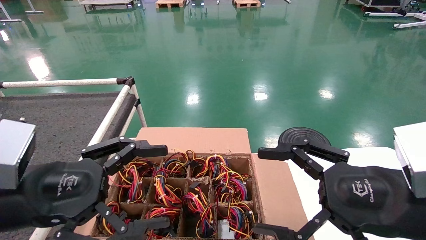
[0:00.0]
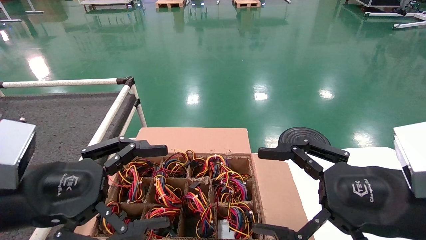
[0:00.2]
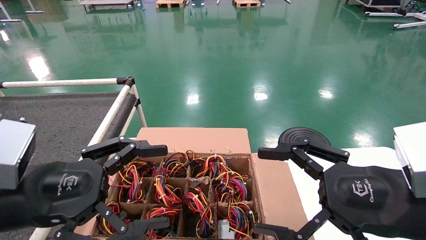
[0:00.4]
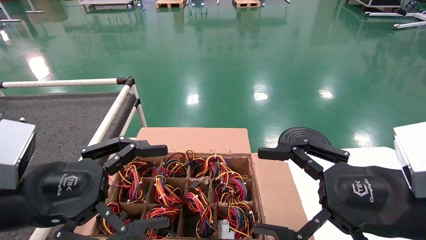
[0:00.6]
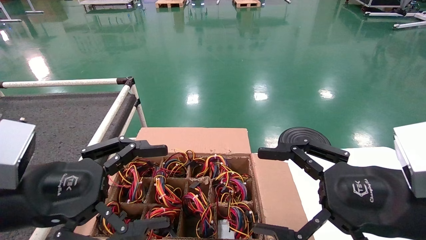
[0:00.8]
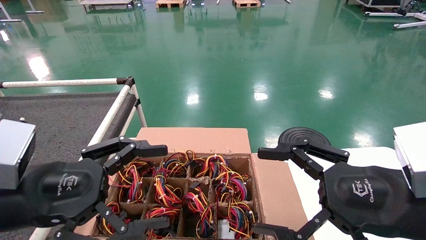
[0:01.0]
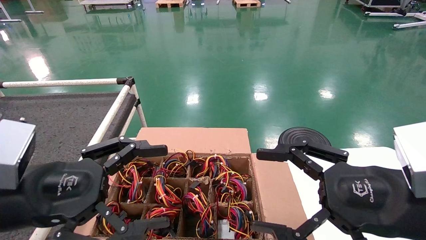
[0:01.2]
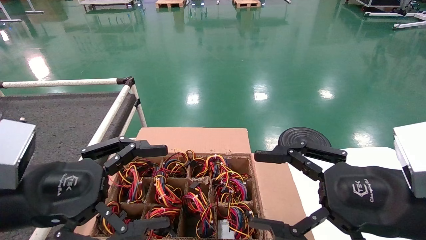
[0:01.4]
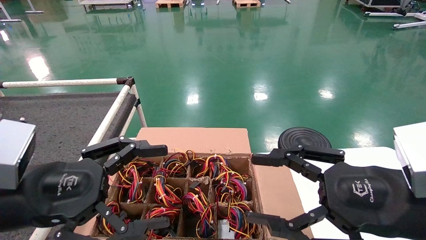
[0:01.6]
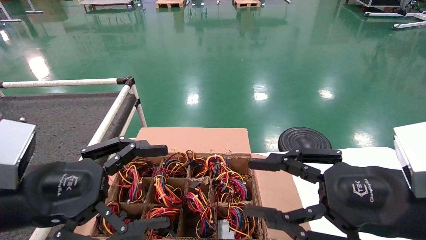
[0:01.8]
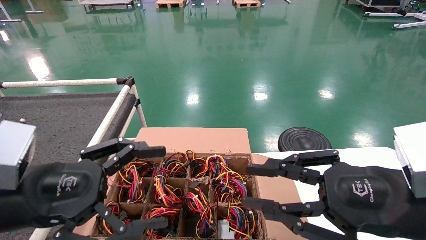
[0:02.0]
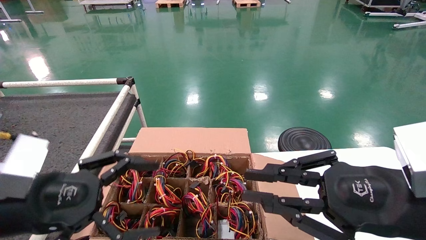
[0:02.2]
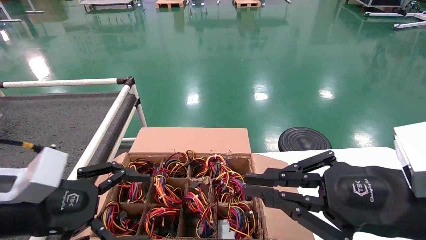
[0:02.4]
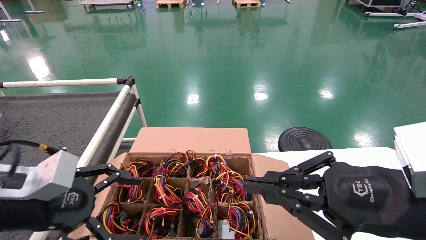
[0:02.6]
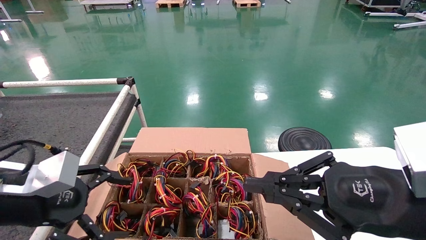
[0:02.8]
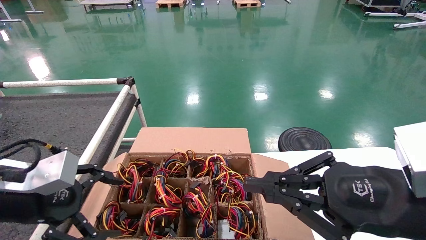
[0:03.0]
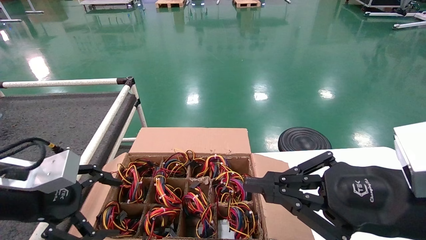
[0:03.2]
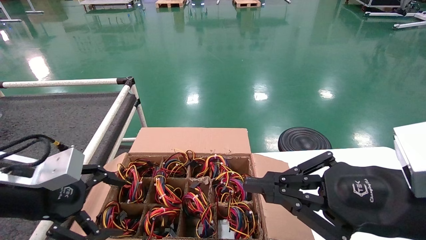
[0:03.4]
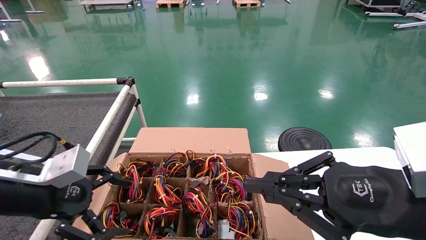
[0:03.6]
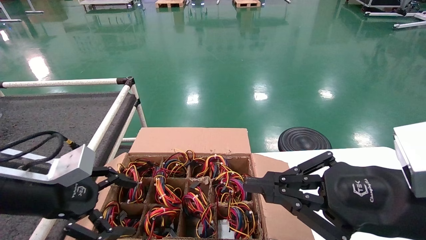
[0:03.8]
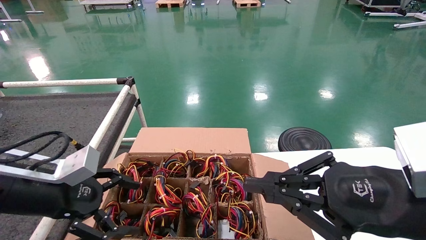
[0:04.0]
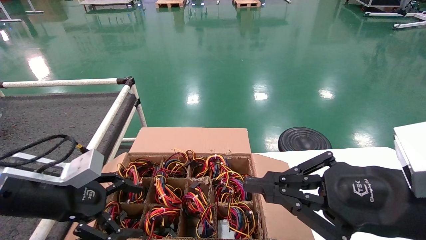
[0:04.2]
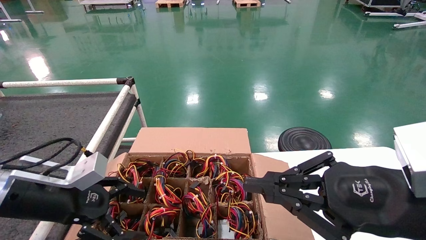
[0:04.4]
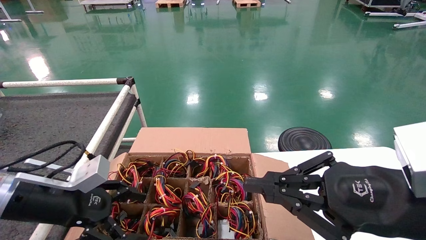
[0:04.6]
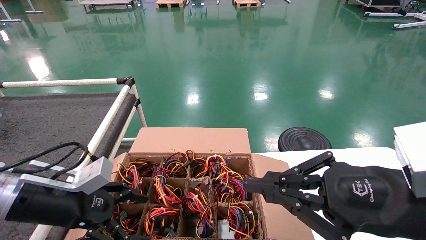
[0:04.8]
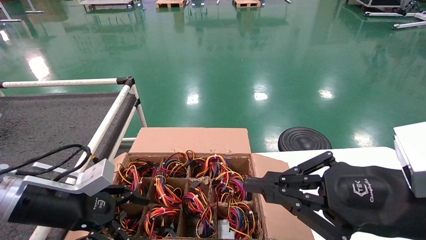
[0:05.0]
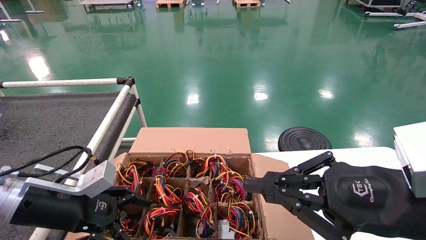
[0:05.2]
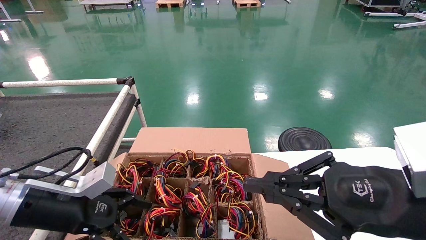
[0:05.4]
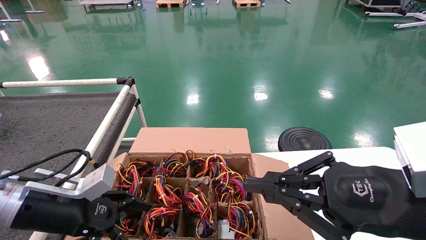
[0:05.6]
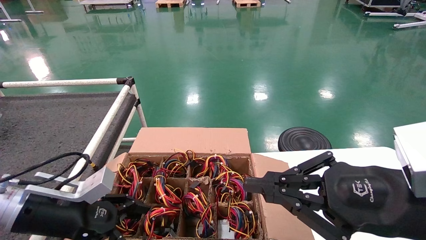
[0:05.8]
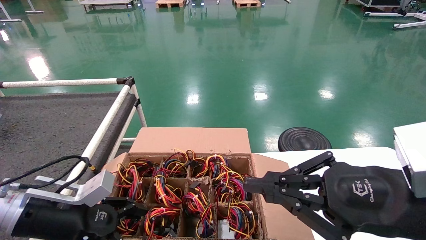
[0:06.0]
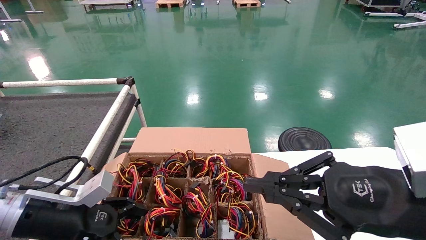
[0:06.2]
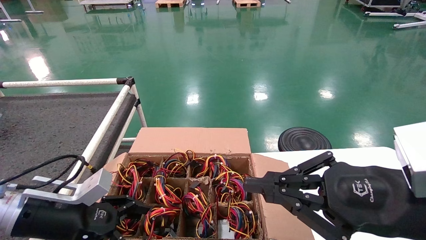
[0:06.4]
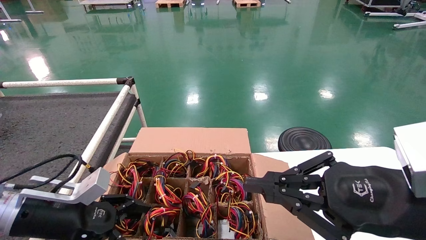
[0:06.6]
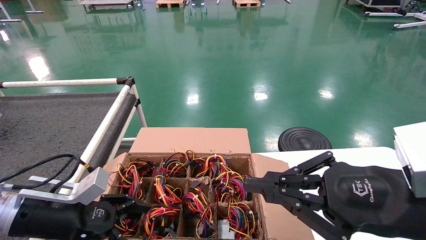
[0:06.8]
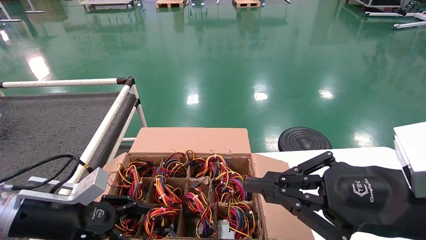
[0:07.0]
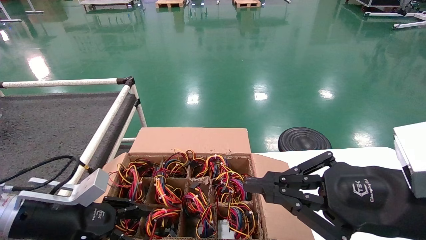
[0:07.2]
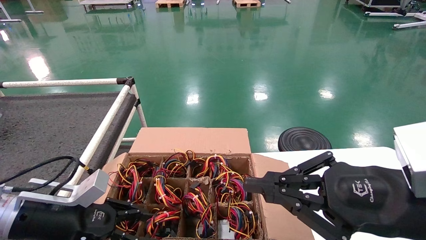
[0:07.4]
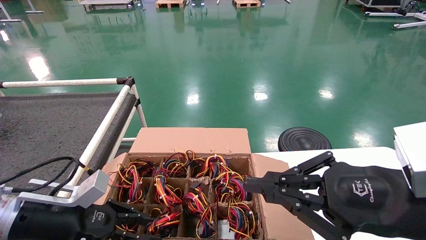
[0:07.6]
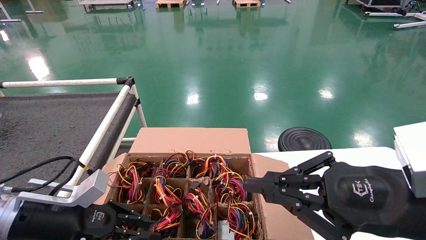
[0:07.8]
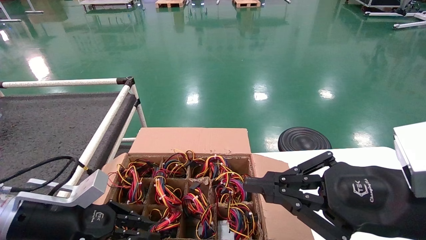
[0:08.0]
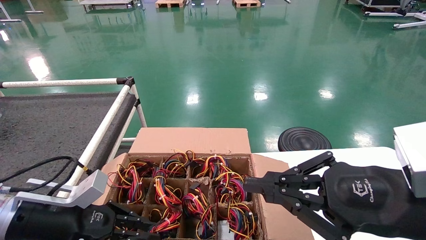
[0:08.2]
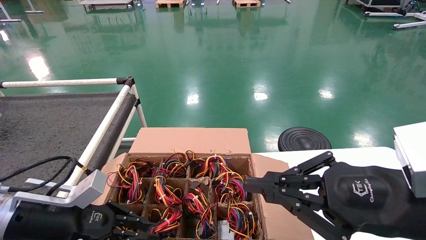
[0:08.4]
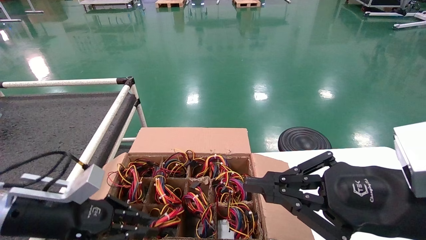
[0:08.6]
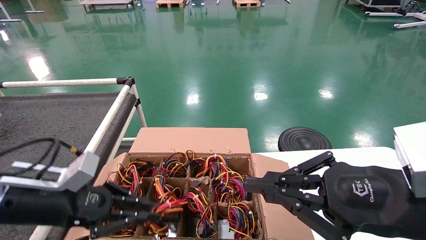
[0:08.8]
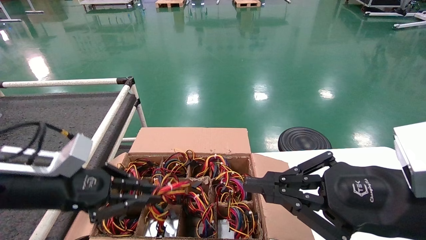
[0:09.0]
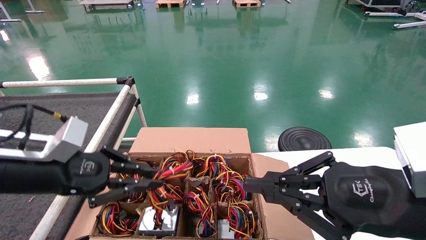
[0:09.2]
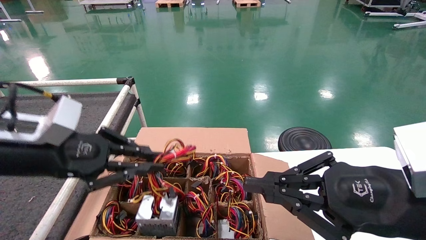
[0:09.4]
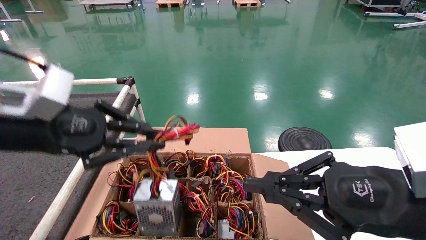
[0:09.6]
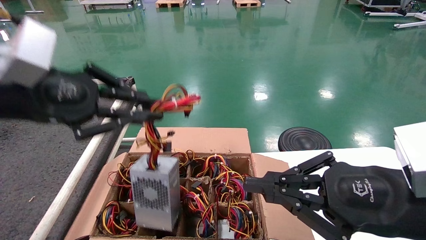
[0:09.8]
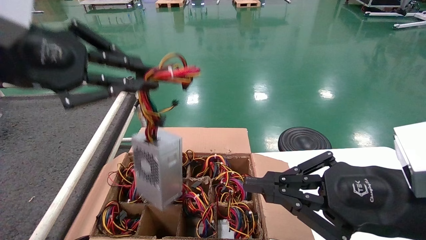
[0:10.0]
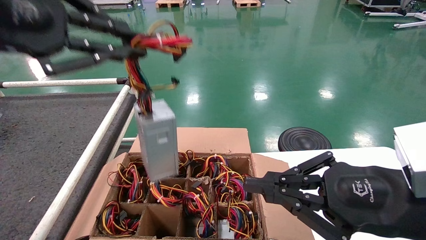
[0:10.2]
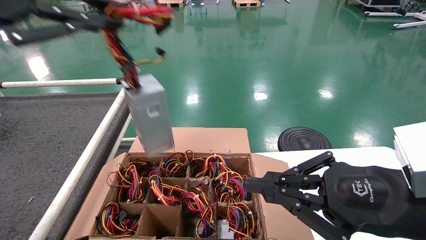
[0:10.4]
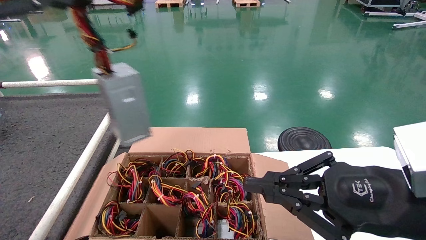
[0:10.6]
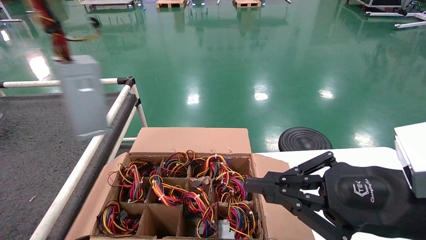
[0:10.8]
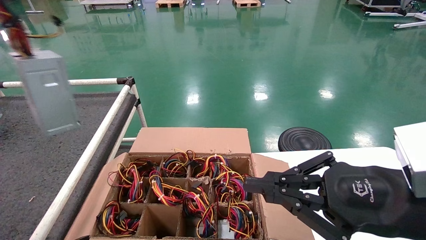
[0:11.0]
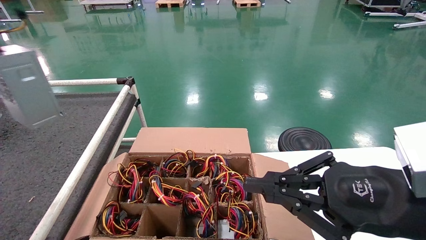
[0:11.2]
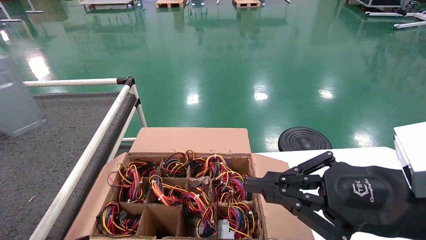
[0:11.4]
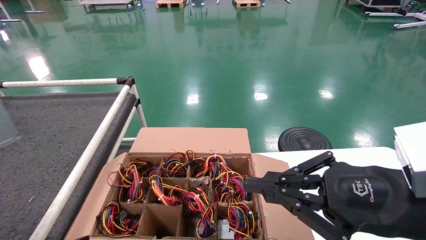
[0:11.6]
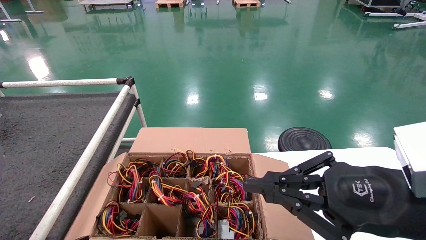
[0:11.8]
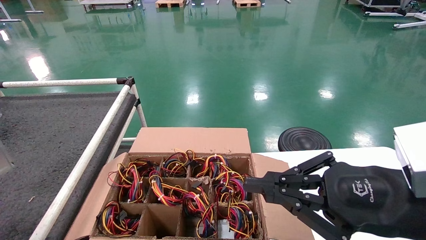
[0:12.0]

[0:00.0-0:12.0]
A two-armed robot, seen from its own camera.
Step, 0:02.6 to 0:08.0: Grab and lift the power supply from the large box.
0:00.0 to 0:01.6: Both grippers stay about where they are.
0:01.6 to 0:03.0: The left gripper travels to the left by about 5 cm. The right gripper closes.
0:03.0 to 0:04.4: The left gripper ends up about 5 cm from where it was.
0:04.4 to 0:06.0: The grippers make only small movements.
0:06.0 to 0:07.6: The left gripper closes its fingers.
0:07.6 to 0:09.0: The left gripper goes some 10 cm upward, and closes its fingers.
0:09.0 to 0:10.4: The left gripper moves upward and backward, some 30 cm.
0:10.4 to 0:12.0: The left gripper shifts some 20 cm to the left.

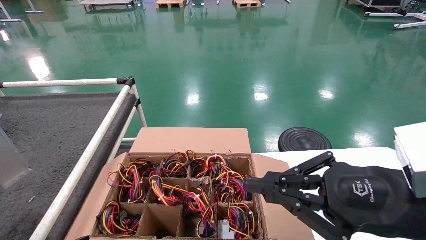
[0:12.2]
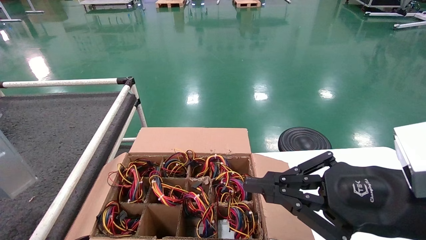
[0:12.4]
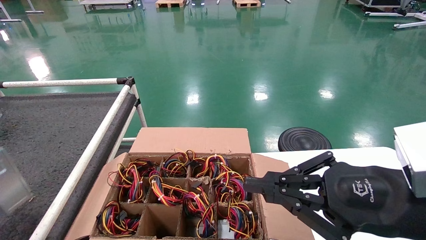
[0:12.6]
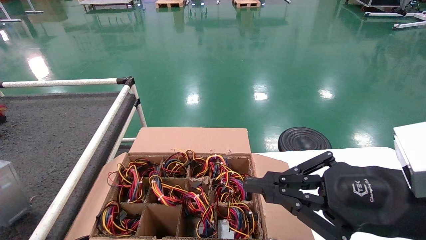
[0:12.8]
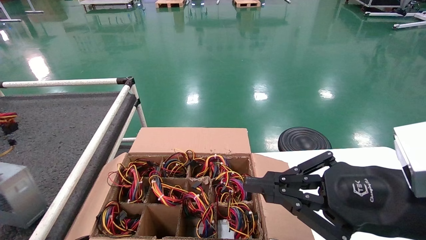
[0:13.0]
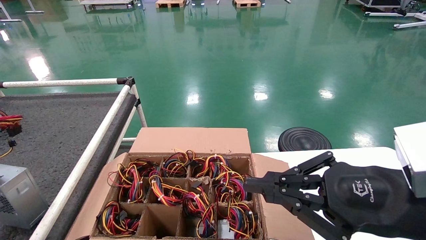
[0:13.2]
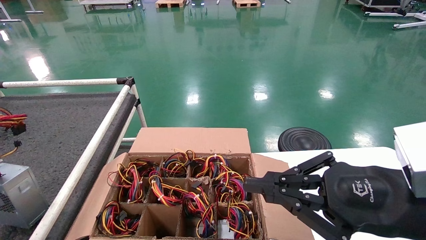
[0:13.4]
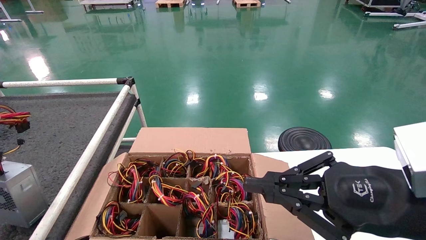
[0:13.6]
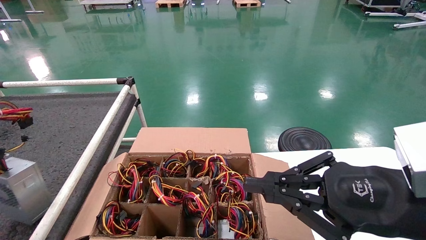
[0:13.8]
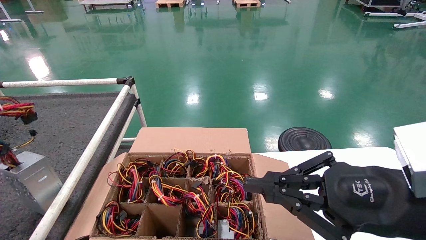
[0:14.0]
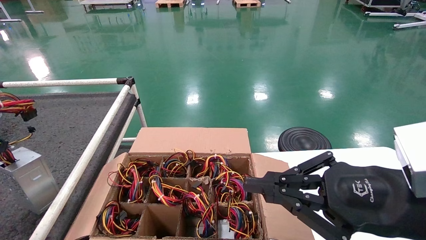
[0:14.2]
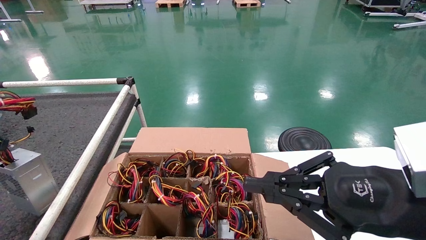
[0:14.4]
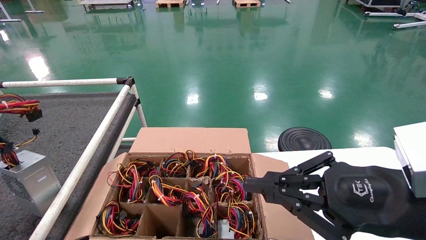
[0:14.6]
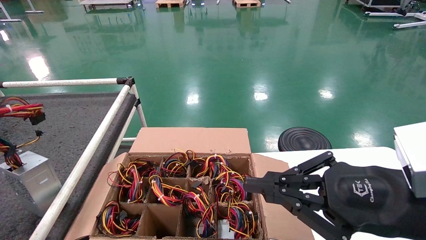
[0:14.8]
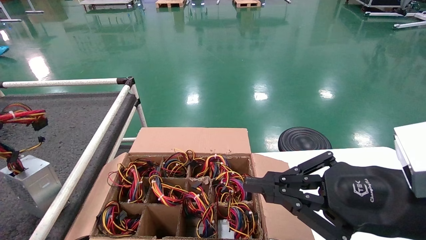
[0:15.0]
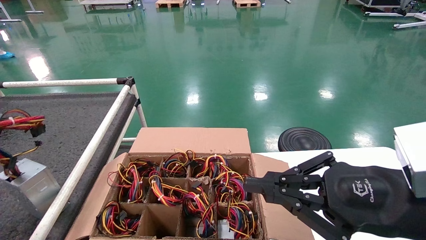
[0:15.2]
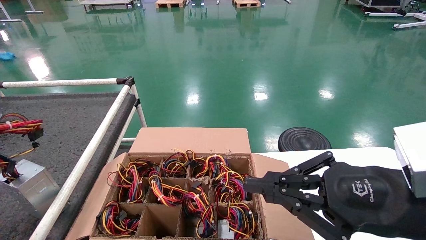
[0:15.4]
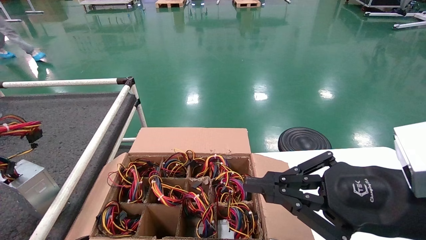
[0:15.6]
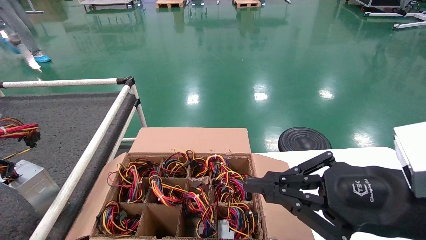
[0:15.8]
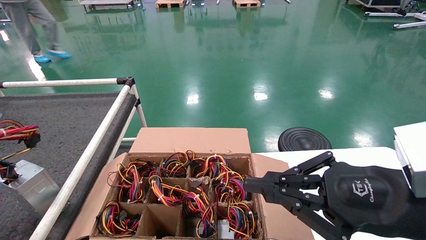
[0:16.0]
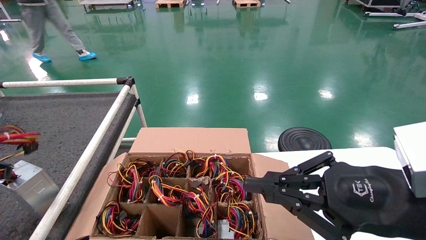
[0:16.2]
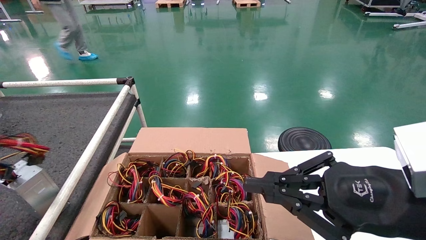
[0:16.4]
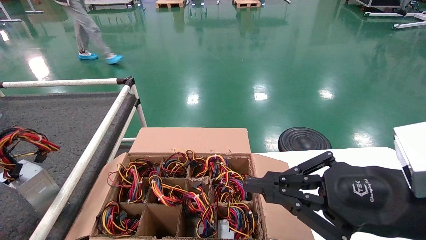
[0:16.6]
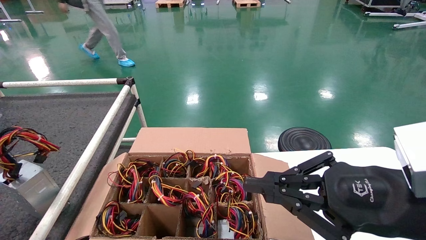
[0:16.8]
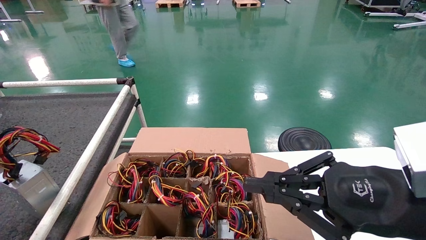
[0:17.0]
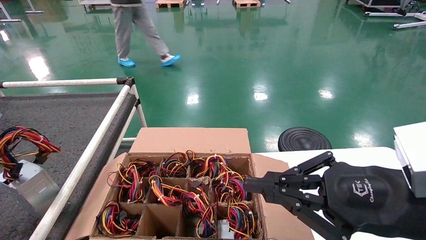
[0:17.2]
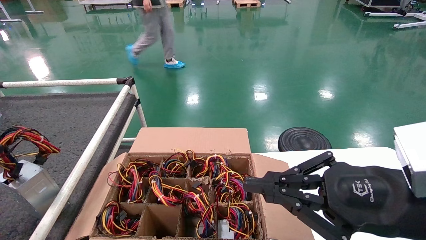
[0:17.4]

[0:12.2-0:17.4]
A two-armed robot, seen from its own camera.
Step, 0:12.2 to 0:16.4: Place the power supply on the operating table.
0:12.2 to 0:14.0: The left gripper moves downward and forward, about 10 cm.
0:14.0 to 0:15.6: The grippers move only a little.
0:15.6 to 0:17.4: The left gripper opens up.
